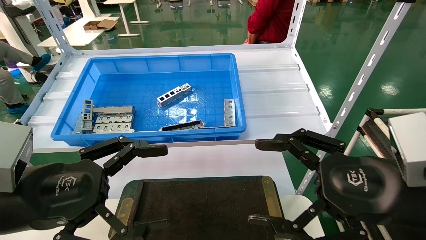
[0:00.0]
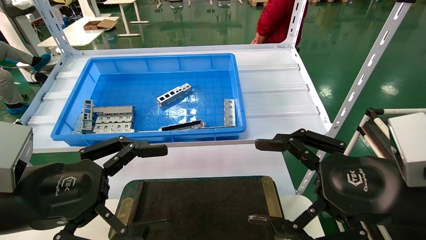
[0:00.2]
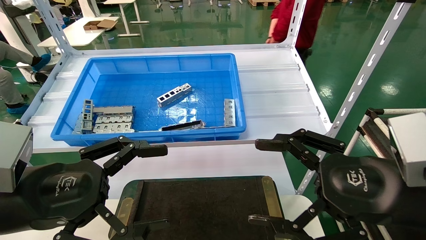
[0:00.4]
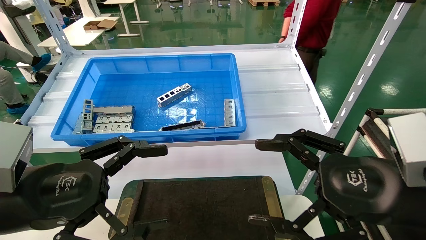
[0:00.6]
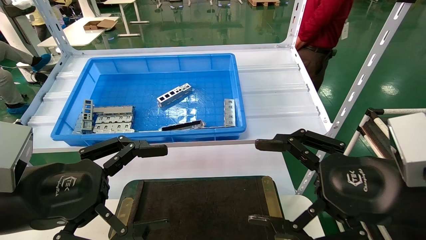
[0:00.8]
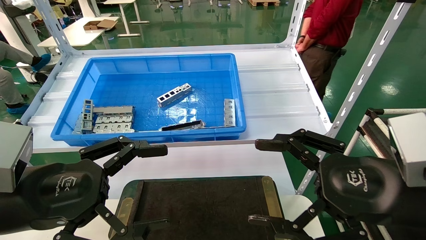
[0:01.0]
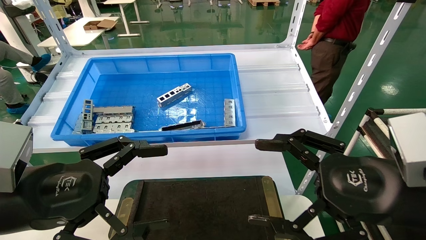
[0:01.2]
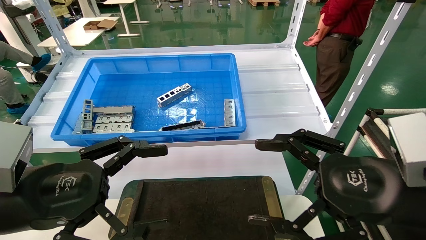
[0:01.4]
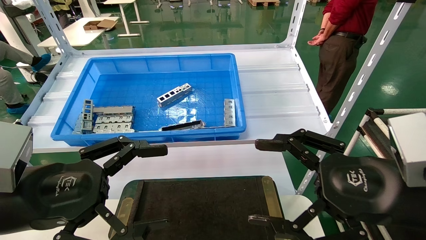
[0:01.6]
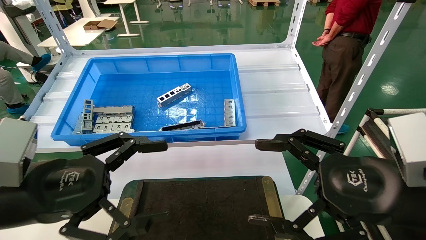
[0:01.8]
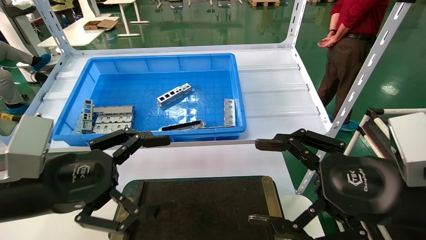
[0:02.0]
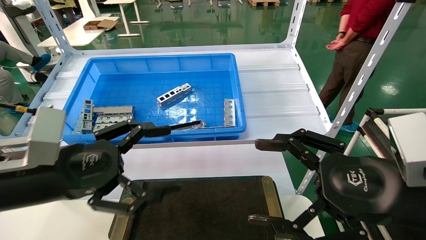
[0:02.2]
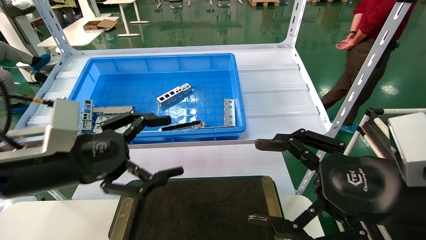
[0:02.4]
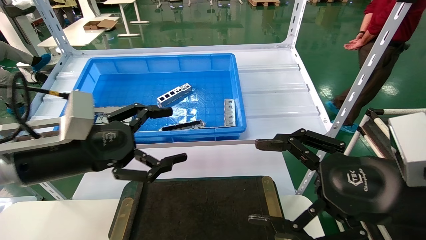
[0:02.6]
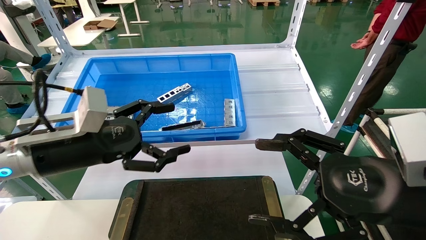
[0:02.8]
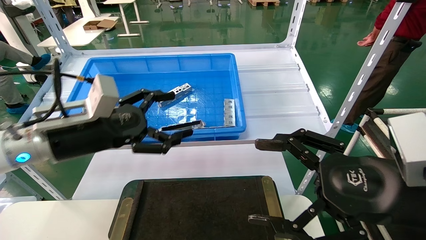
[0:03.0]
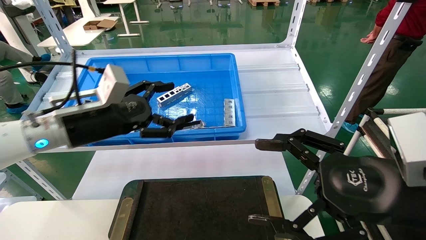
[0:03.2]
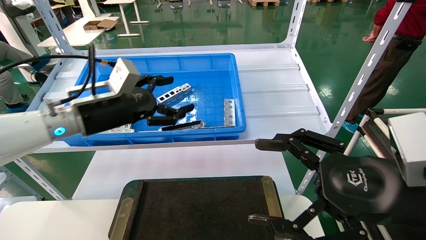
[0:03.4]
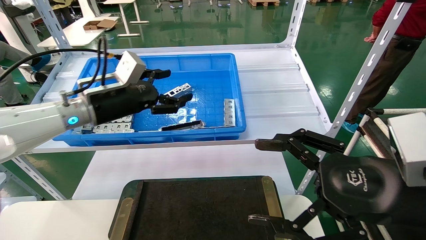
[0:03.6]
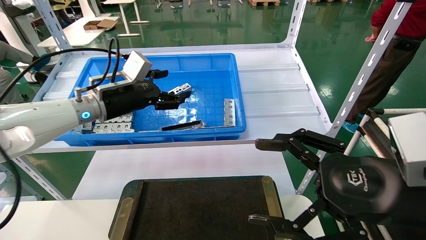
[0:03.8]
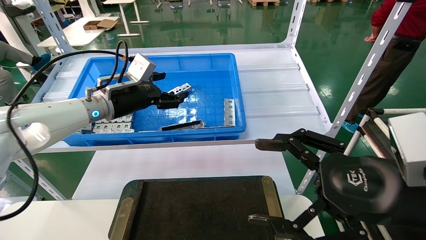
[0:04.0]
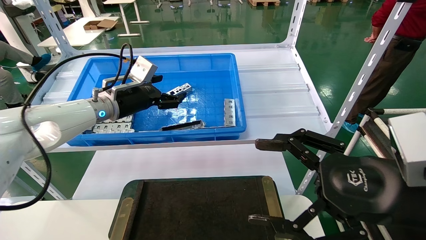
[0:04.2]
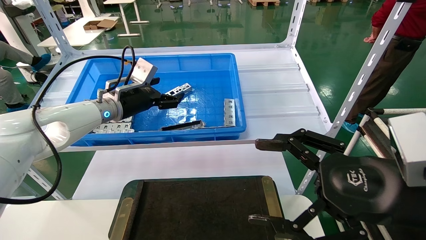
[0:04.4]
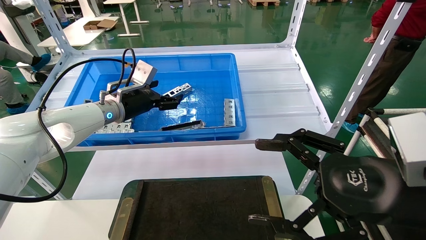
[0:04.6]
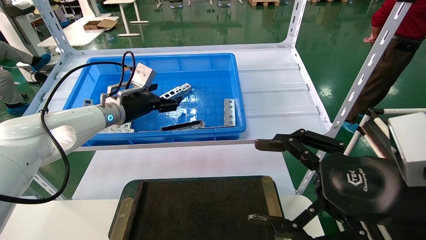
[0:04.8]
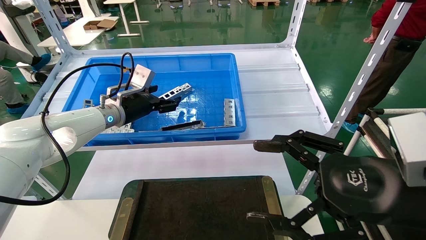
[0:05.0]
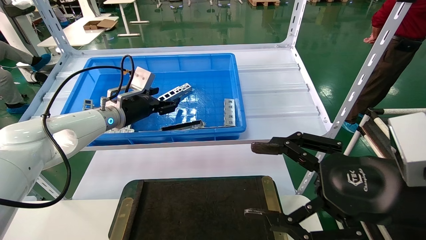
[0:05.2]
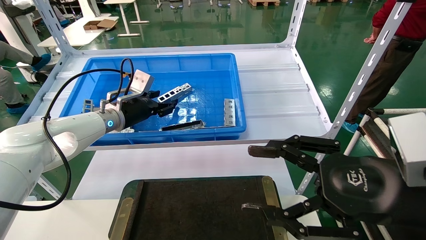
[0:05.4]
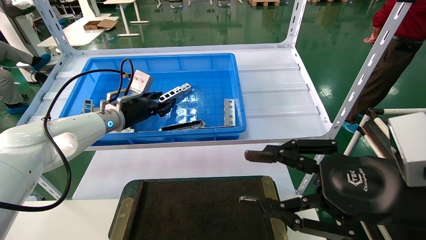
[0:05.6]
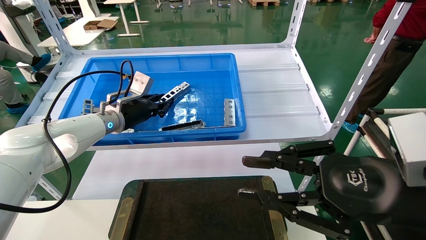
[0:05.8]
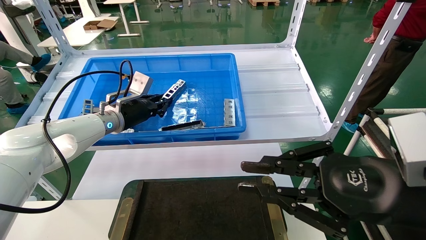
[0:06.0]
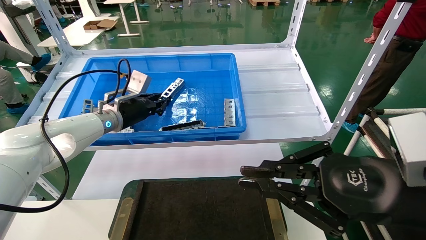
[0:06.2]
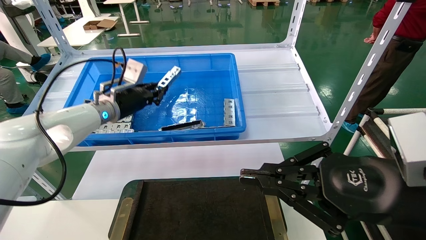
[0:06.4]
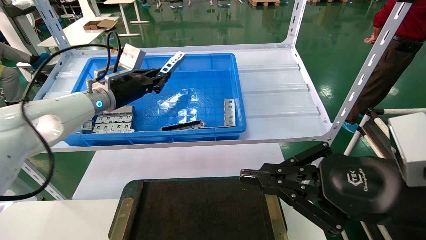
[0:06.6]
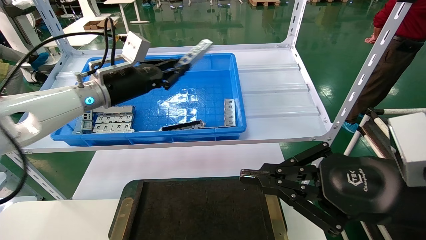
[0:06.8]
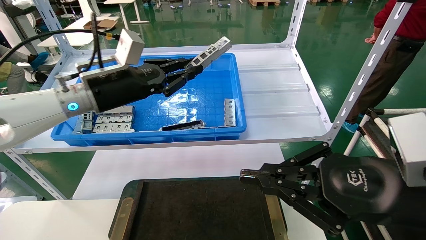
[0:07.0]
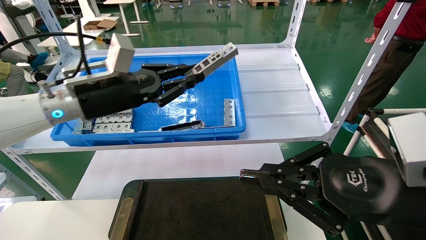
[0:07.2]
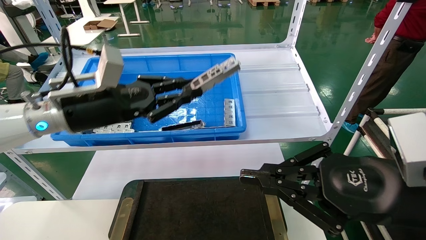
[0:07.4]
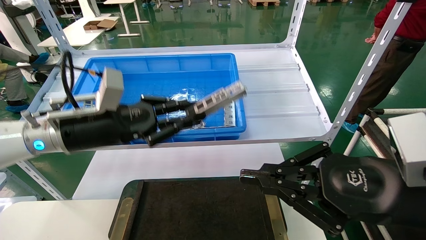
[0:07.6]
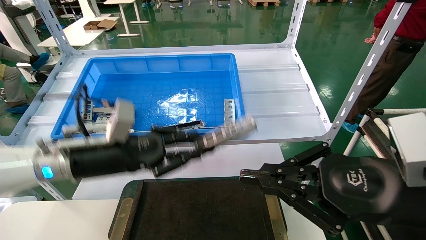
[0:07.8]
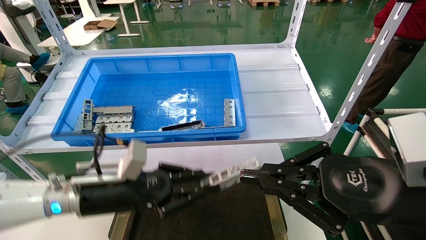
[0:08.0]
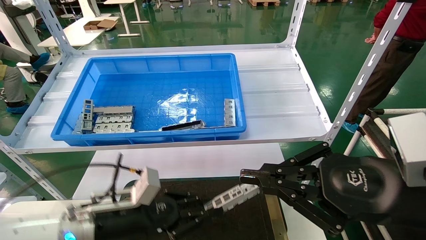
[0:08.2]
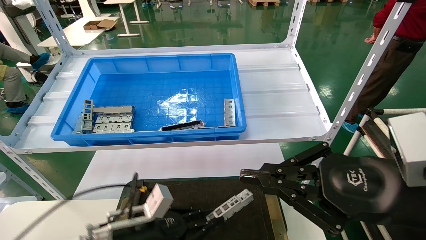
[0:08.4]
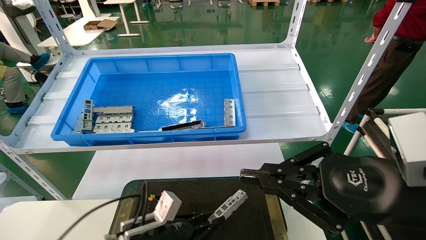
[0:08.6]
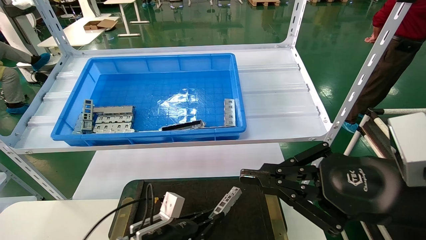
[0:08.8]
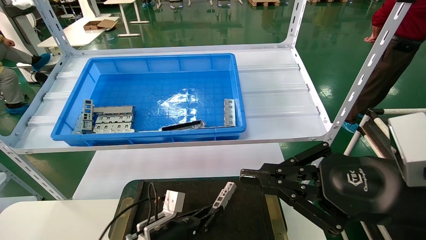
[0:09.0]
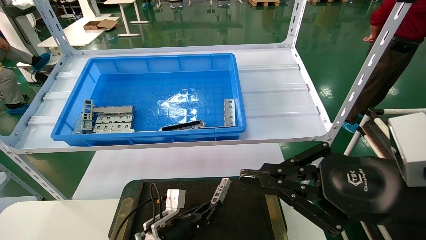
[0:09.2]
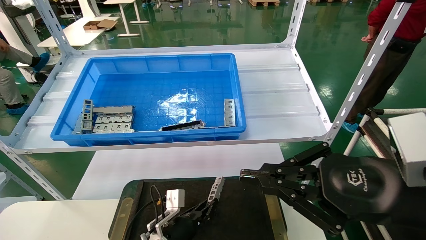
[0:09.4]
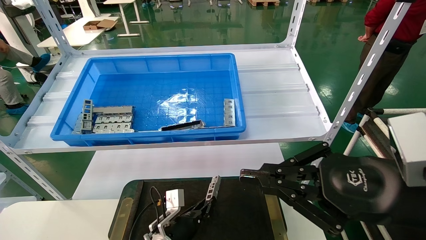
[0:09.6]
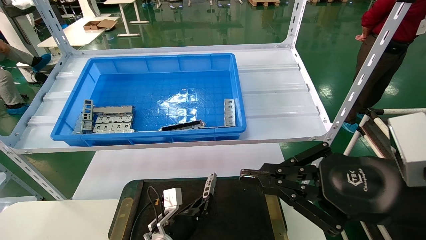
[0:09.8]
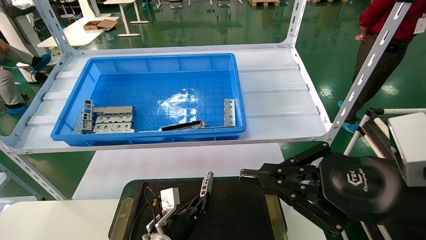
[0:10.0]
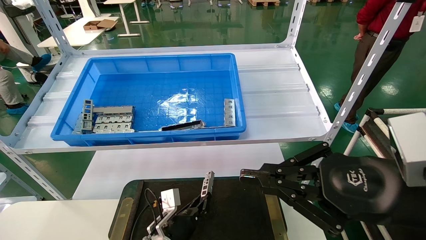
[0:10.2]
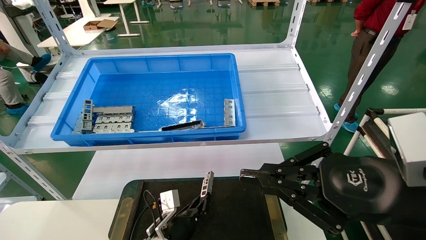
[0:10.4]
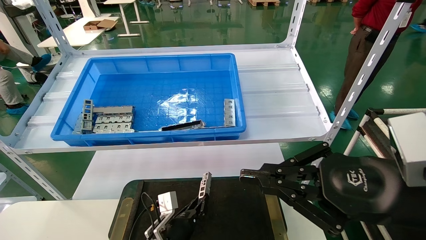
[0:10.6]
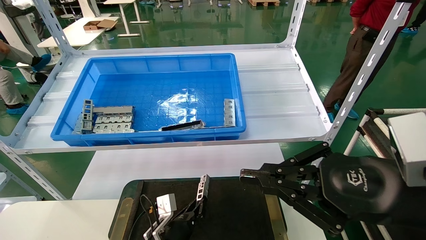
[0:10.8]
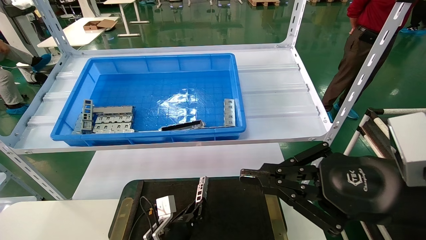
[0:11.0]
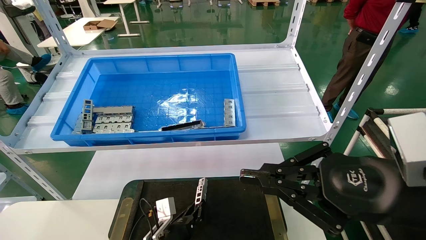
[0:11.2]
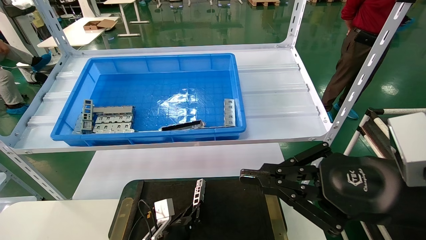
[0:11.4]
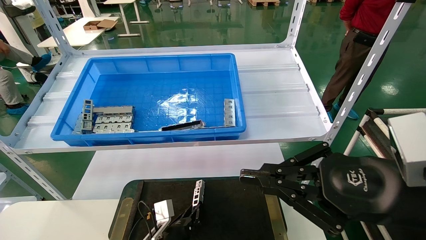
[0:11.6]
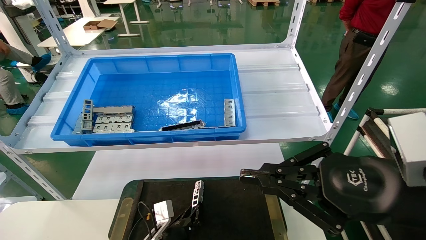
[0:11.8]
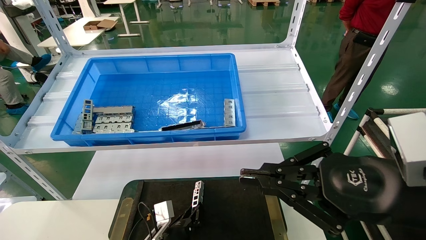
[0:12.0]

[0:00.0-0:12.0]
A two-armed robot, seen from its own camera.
Task of the whole recording: Grasp the part with one hand and place it on the black container.
Step, 0:02.2 to 0:06.8: Pick up the front USB bracket from the feeding area.
0:00.0 to 0:01.6: Neither gripper changes place.
0:01.6 to 0:03.0: The left gripper shifts some 15 cm forward.
0:03.0 to 0:04.4: The left gripper moves forward, some 15 cm.
0:04.4 to 0:06.0: The right gripper closes up; the left gripper closes.
0:06.0 to 0:07.6: The left gripper shifts roughly 15 cm backward.
0:07.6 to 0:09.0: The left gripper heads downward, covering approximately 30 cm.
0:09.0 to 0:10.4: The left gripper changes place by about 5 cm.
0:10.4 to 0:12.0: There are only small adjustments of the grippers.

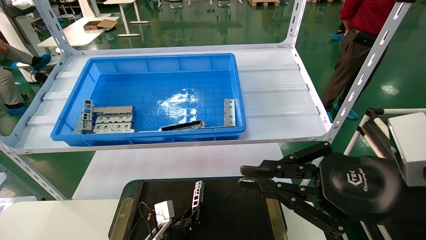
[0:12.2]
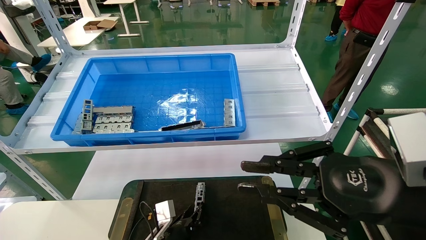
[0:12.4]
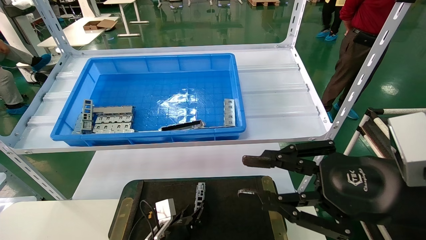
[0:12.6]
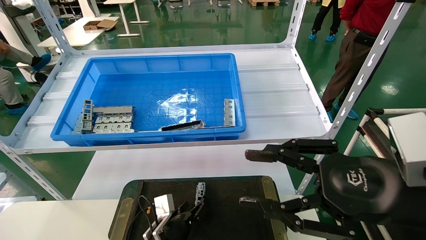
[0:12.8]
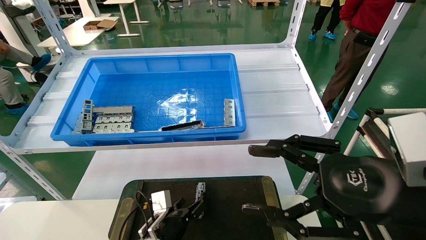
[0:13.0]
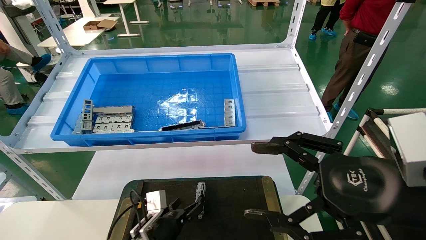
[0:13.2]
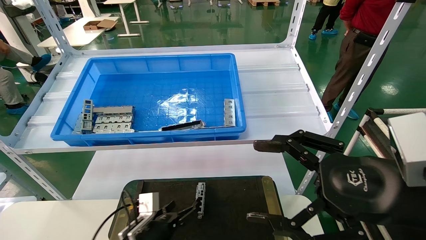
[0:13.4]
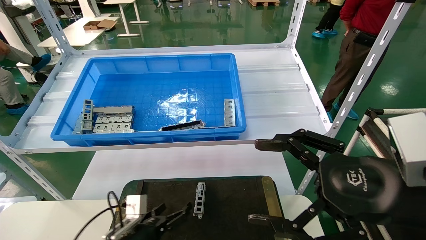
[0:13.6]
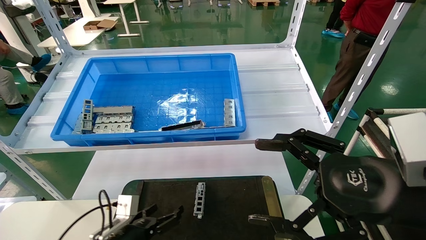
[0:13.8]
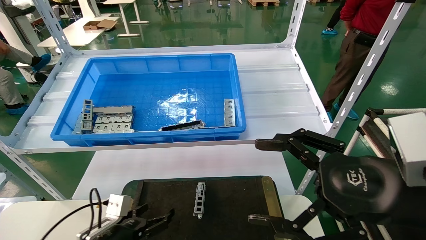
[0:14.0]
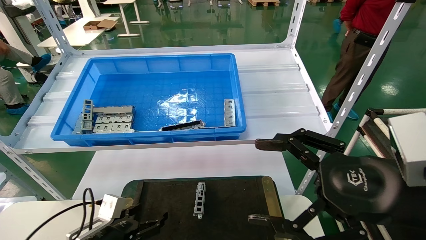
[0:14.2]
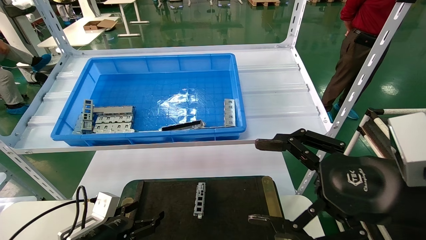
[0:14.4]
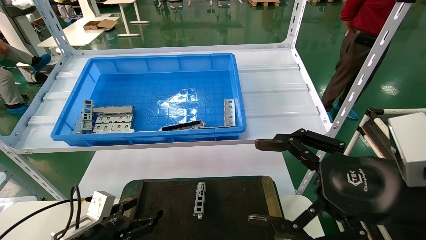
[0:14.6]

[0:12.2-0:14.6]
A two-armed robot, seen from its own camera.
Task of the whole recording: Grasp the part with one hand and place it on the black container.
0:12.2 to 0:13.4: The left gripper moves to the left, roughly 5 cm, and opens. Meanwhile the right gripper opens up.
0:13.4 to 0:14.6: The left gripper is displaced to the left by about 10 cm.
